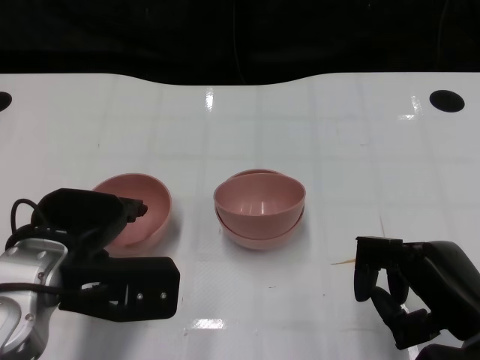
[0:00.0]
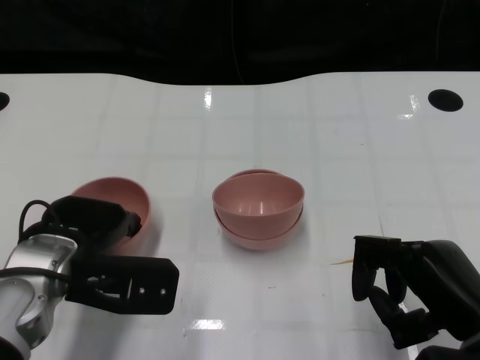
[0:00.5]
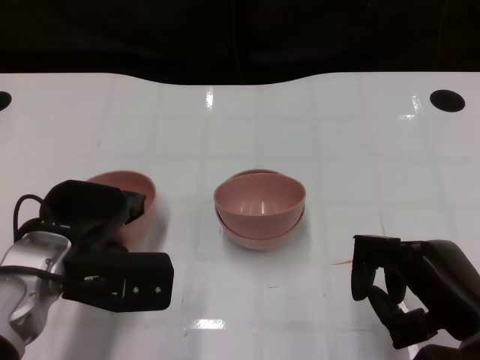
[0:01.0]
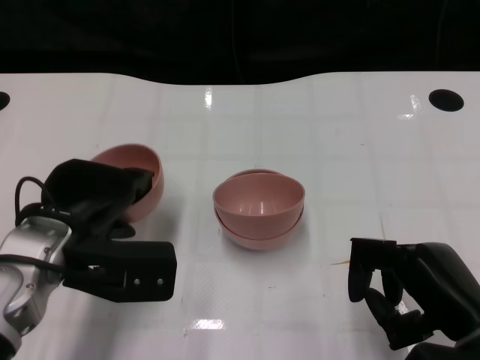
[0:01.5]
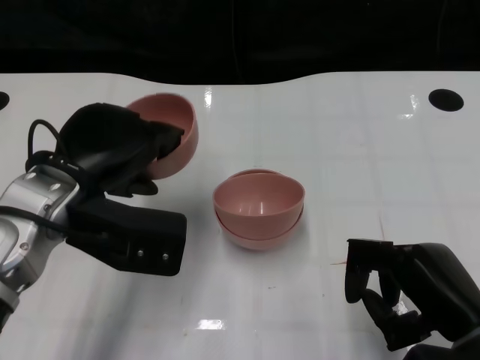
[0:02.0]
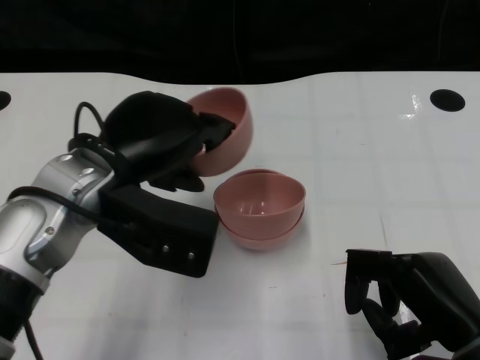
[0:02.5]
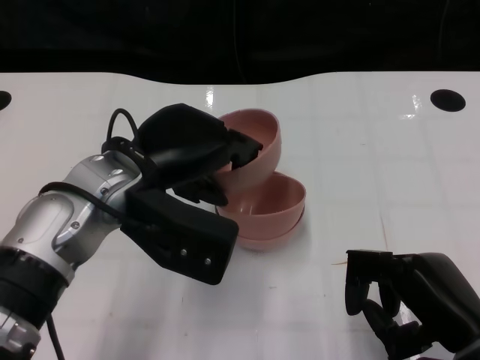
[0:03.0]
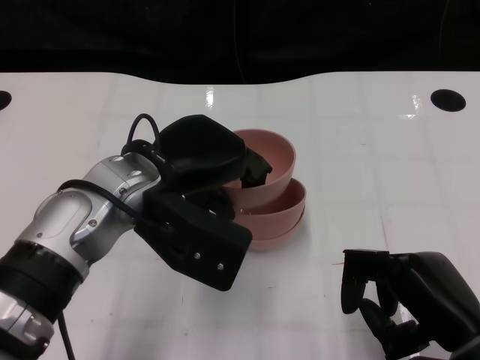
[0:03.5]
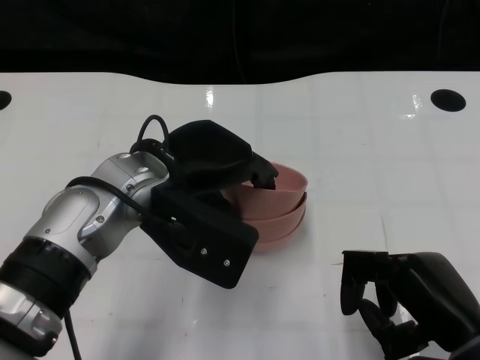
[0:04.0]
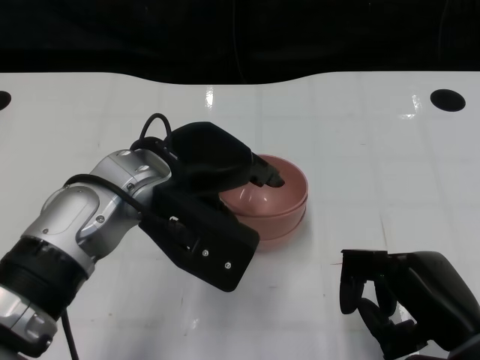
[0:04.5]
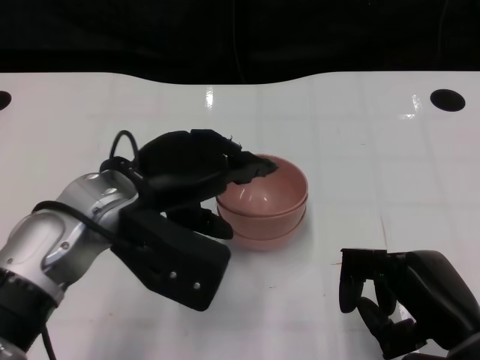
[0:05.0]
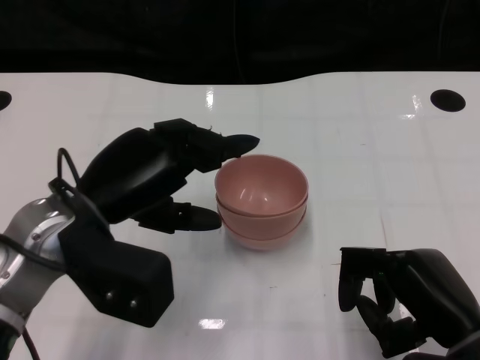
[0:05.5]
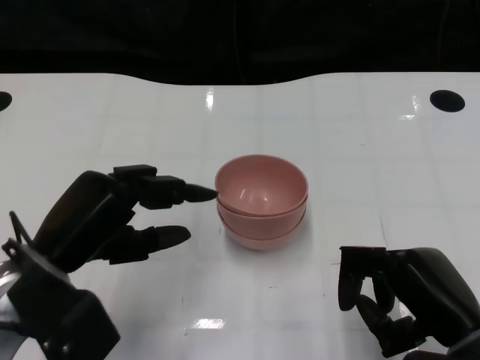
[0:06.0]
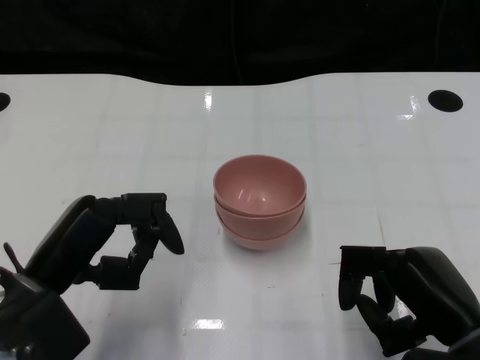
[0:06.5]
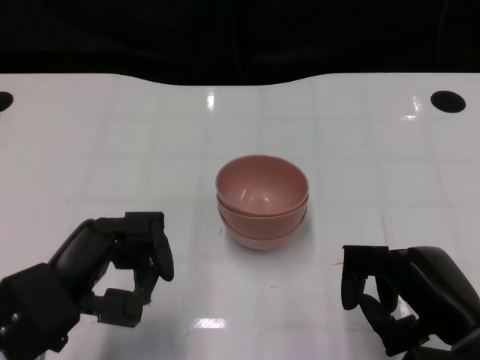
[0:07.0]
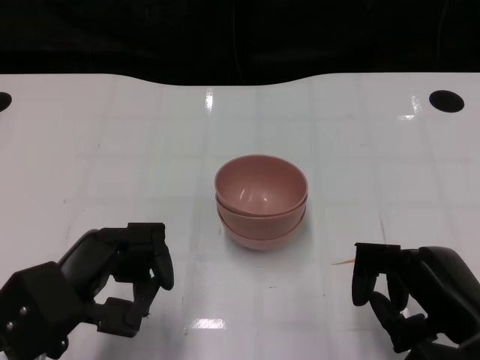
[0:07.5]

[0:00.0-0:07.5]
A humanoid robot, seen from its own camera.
Task of the whole recording: Pick up the bowl on one side of the table and place it on top of the middle bowl, then pick up the bowl on the other side of the table and place it on top of the middle bowls.
Step, 0:01.5 to 0:05.5: Place the bowl on the left onto the bowl in the middle with left gripper.
0:00.0 to 0:02.0: The left hand ends up about 5 cm from where it was.
0:02.0 to 0:04.0: The left hand is displaced to the right by roughly 5 cm.
0:04.0 to 0:05.5: The left hand heads to the left, covering about 5 cm.
0:05.5 to 0:07.5: The left hand goes approximately 10 cm backward and downward.

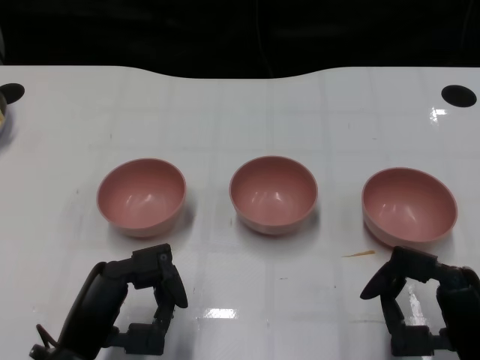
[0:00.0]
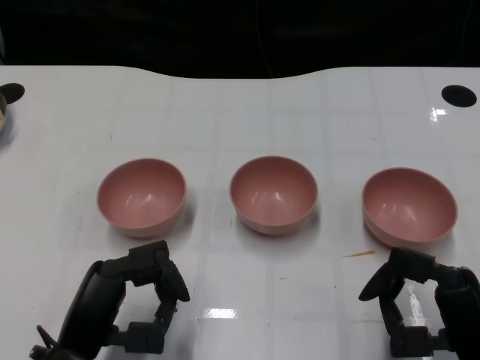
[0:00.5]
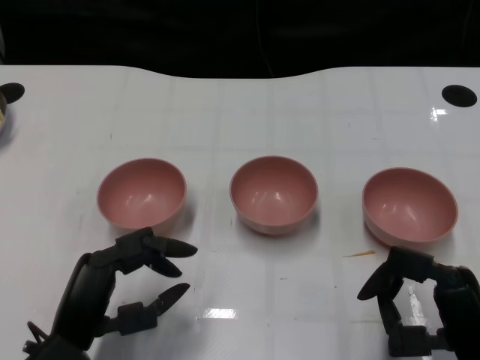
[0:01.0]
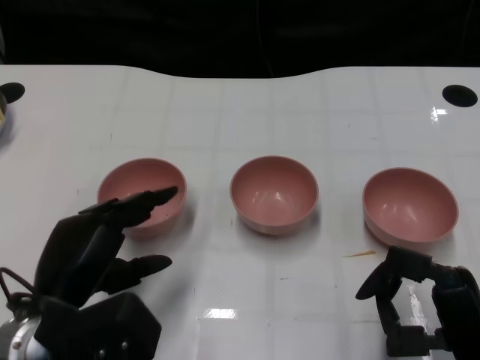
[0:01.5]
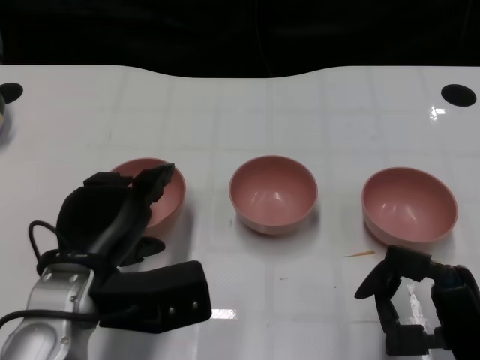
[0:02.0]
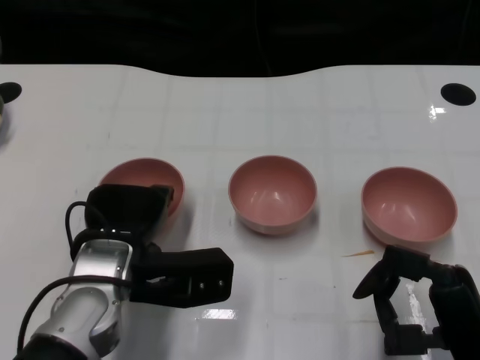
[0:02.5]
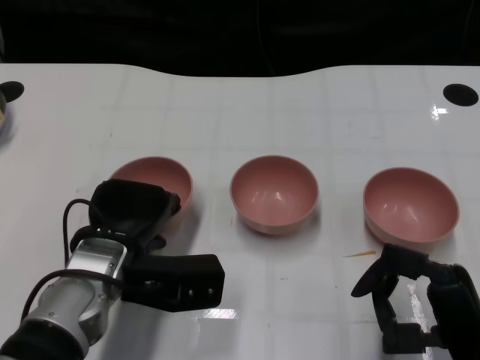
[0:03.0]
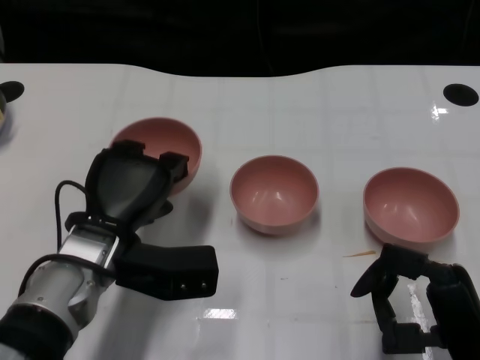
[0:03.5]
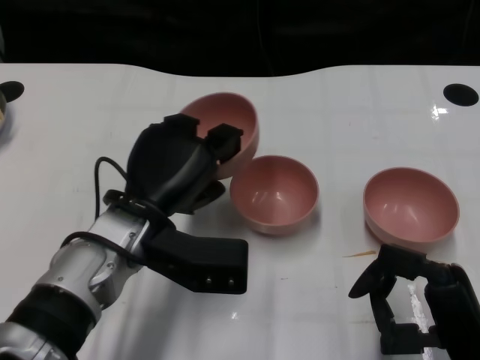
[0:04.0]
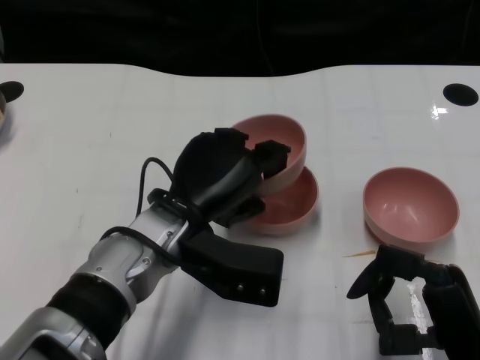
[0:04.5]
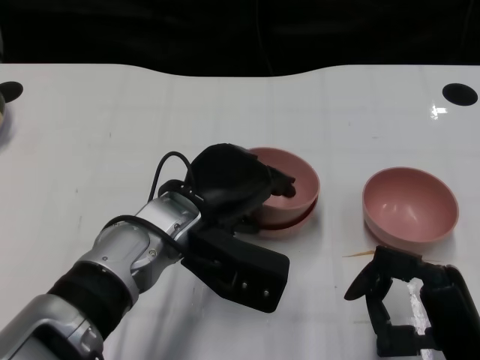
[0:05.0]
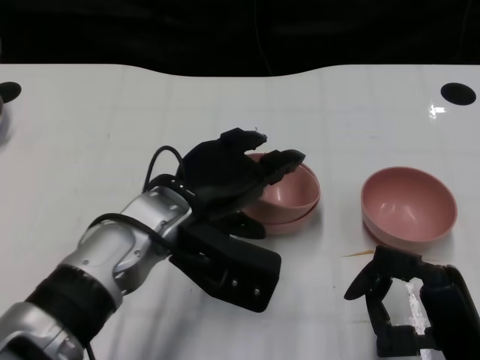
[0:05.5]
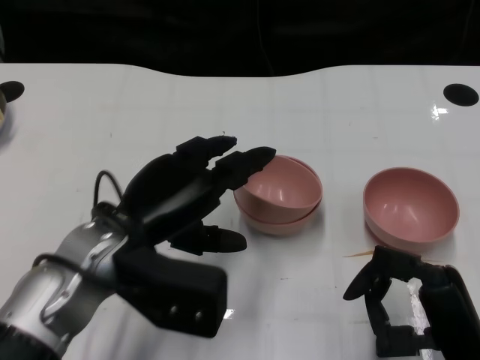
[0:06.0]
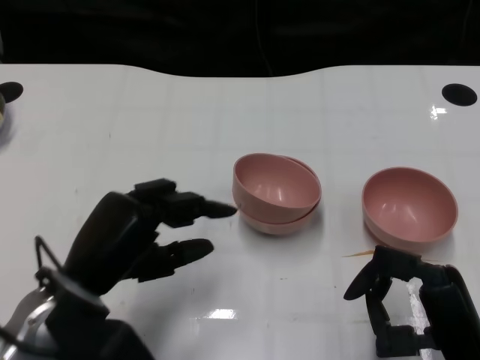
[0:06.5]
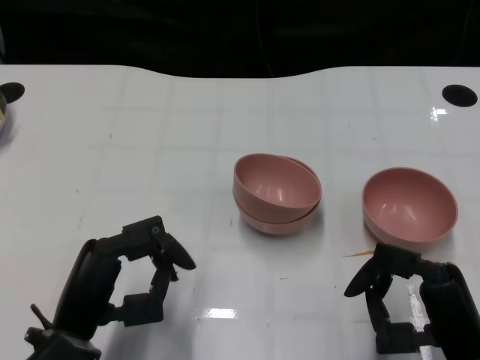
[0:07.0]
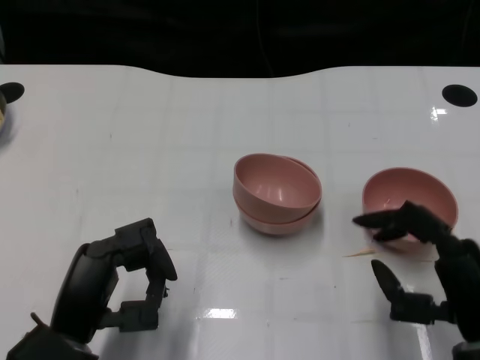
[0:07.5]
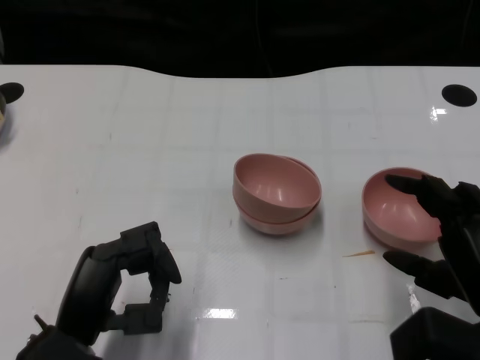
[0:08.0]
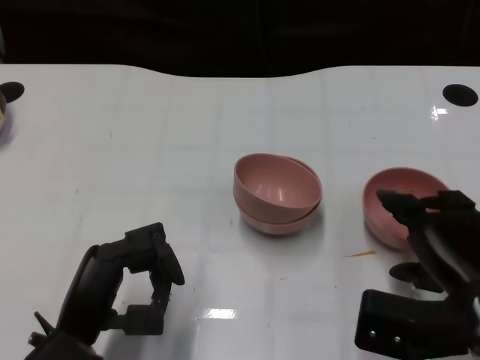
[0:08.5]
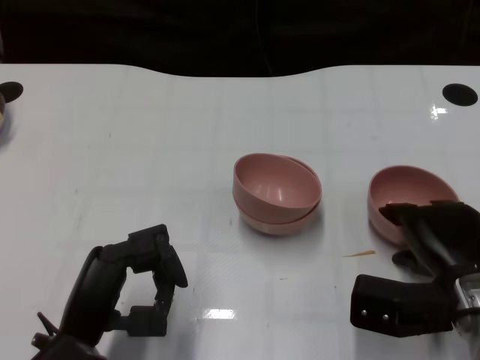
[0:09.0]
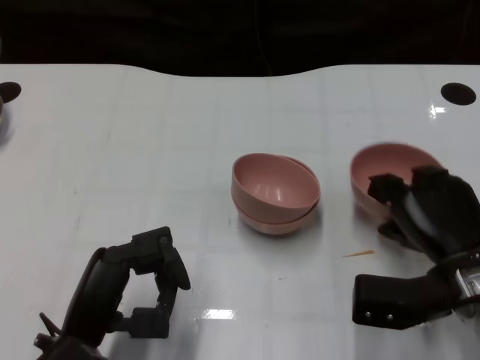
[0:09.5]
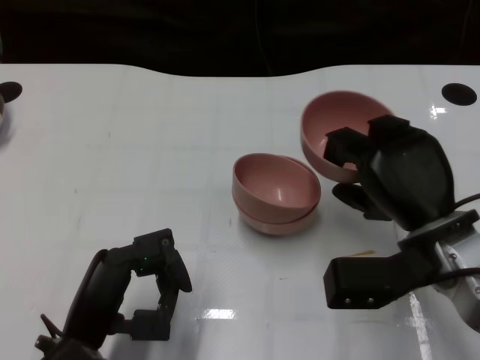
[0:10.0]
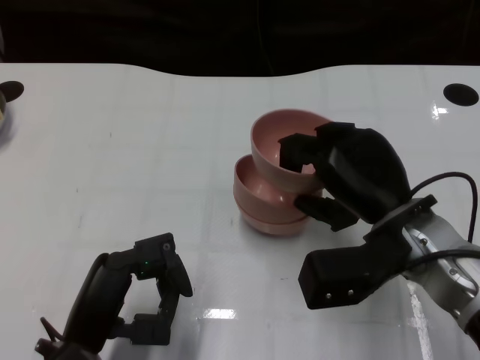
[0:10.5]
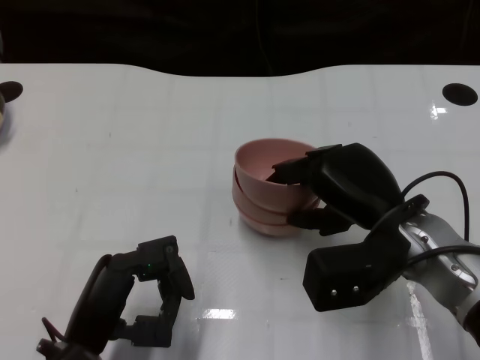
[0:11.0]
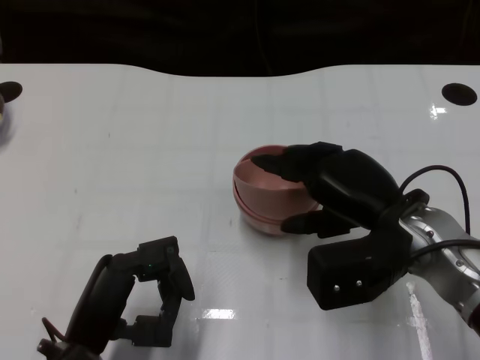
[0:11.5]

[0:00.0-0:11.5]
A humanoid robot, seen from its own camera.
Task of the whole recording: Pick up the bowl on one side of the table and place it on top of the middle bowl, then pick up the bowl on the other side of the table and place it on top of the middle bowls.
Step, 0:01.0 to 0:03.0: Grasp the bowl on the left with the left gripper.
Step, 0:03.5 to 0:05.5: Place the bowl on the left onto the bowl in the middle with left gripper.
Step, 0:06.5 to 0:09.0: Grasp the bowl on the right with the right gripper.
0:02.0 to 0:04.0: The left hand goes about 10 cm forward and to the right.
0:06.0 to 0:07.5: The left hand goes roughly 10 cm downward, backward and to the left.
0:07.5 to 0:09.5: The right hand travels forward by roughly 10 cm.
0:09.5 to 0:11.5: The right hand moves to the left and upward, approximately 10 cm.

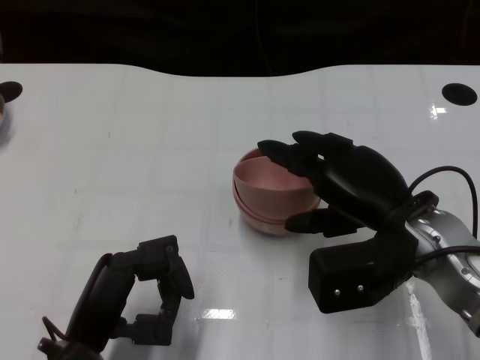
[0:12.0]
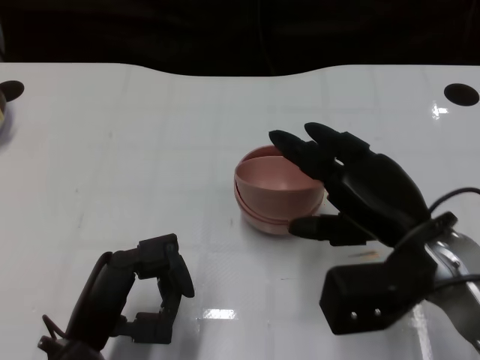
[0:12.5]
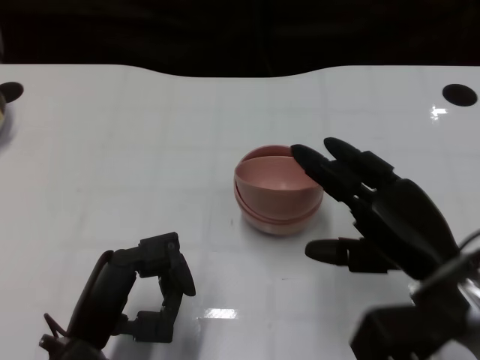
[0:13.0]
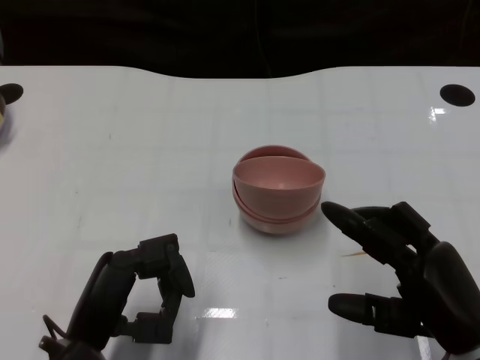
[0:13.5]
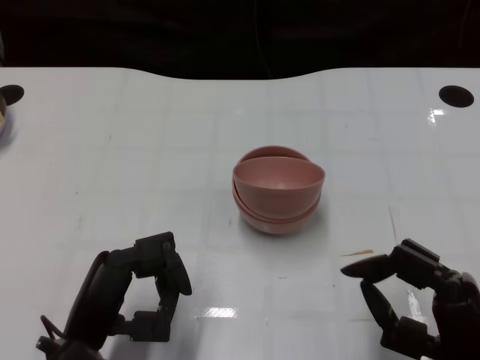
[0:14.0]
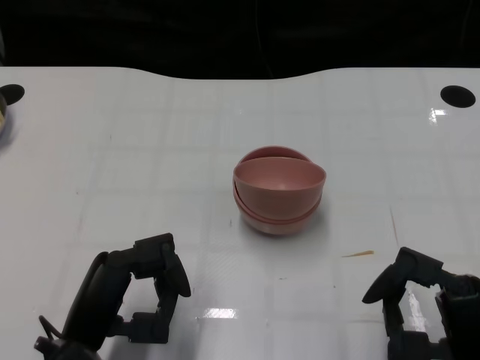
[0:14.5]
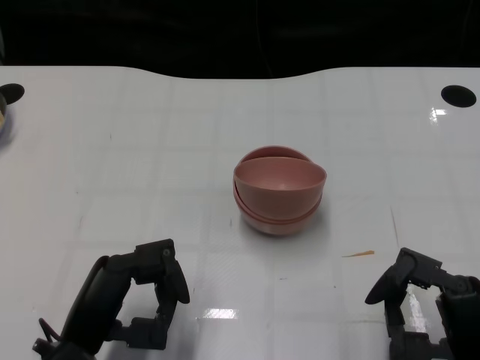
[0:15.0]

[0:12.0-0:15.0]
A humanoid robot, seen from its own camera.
Task of the whole recording: Pick up the bowl on one side of the table and place it on top of the middle bowl, then pick up the bowl on the other side of the table and place it on top of the middle bowls.
0:12.0 to 0:13.5: The right hand heads backward and to the right, covering about 10 cm.
